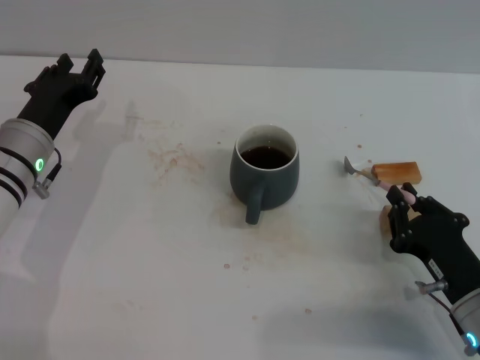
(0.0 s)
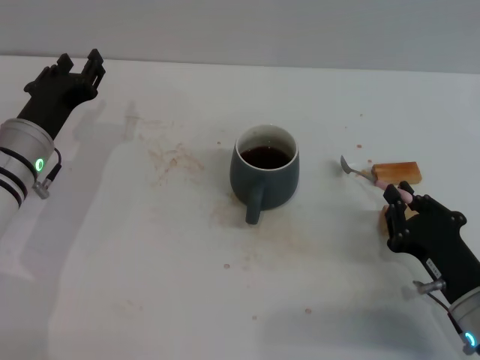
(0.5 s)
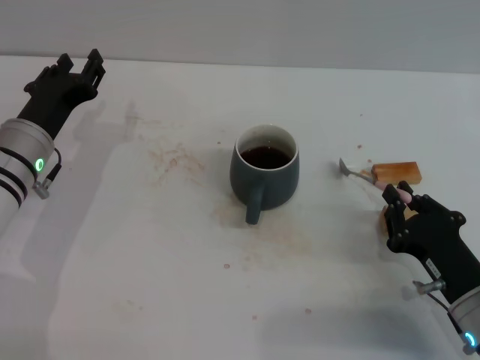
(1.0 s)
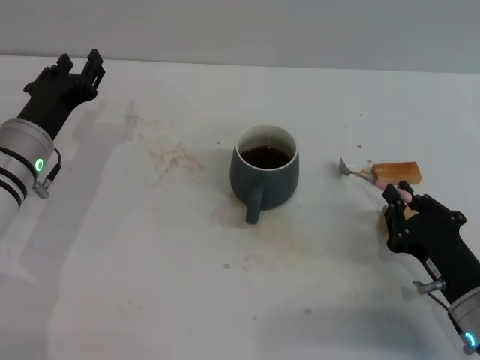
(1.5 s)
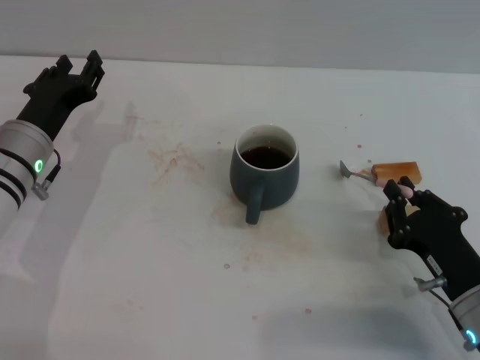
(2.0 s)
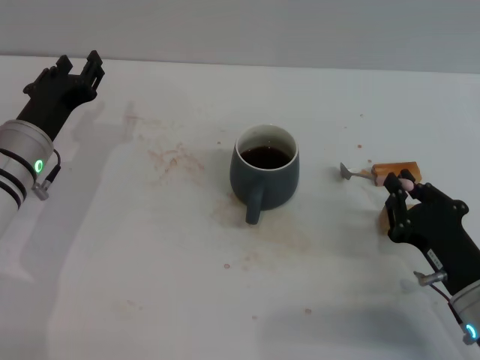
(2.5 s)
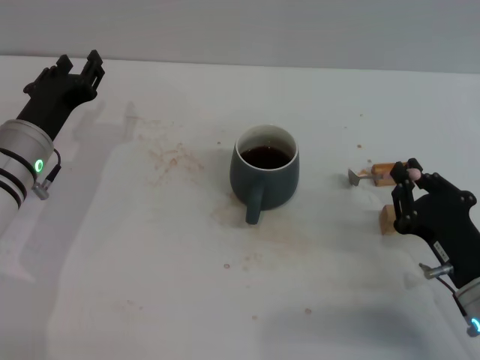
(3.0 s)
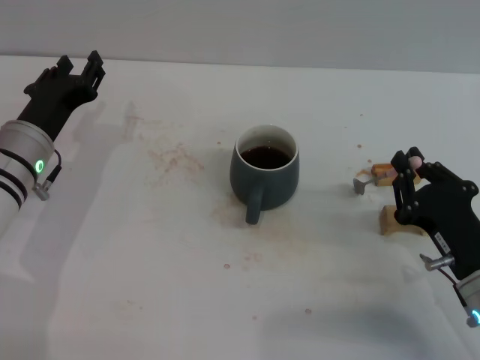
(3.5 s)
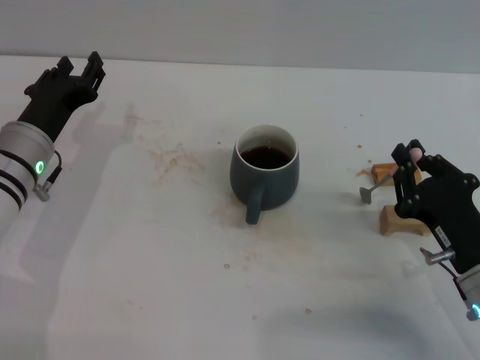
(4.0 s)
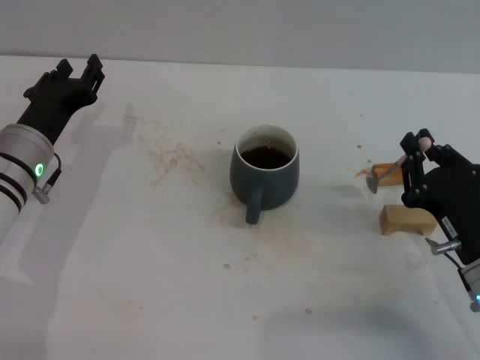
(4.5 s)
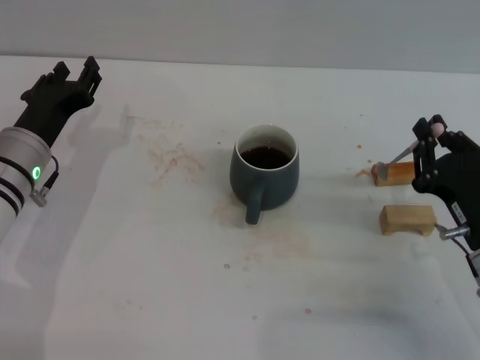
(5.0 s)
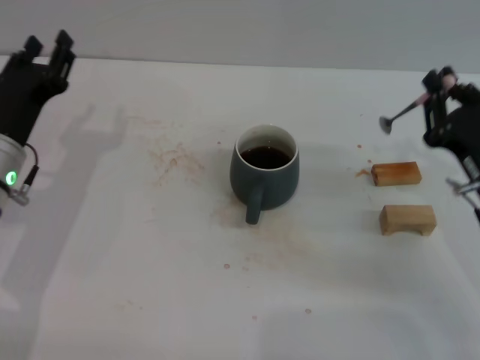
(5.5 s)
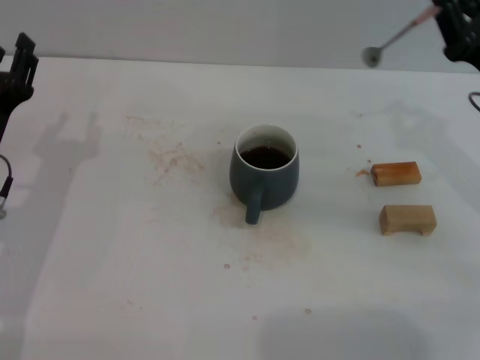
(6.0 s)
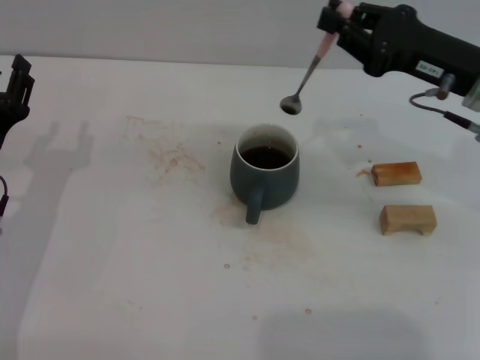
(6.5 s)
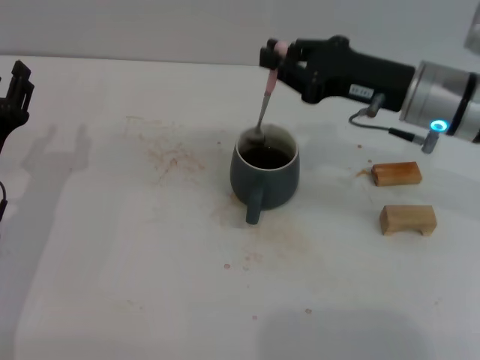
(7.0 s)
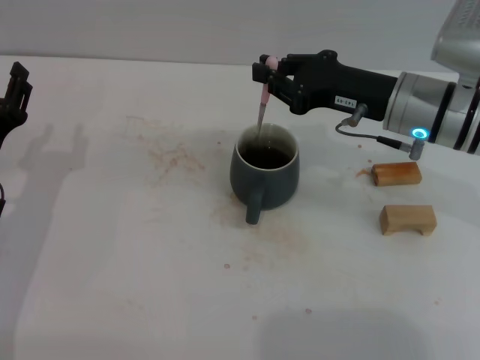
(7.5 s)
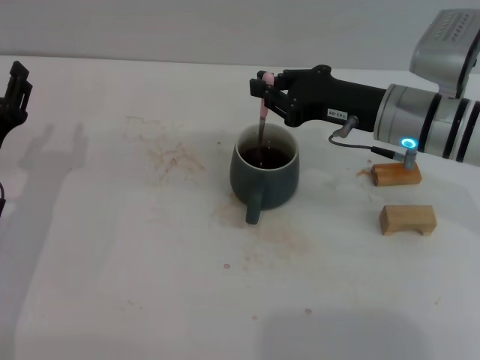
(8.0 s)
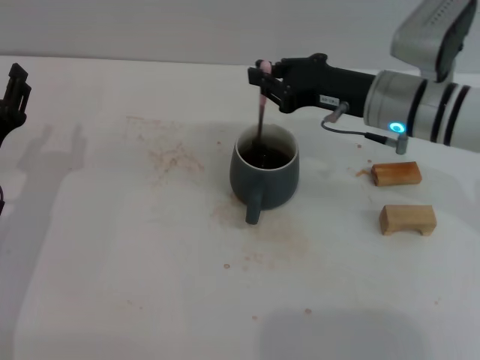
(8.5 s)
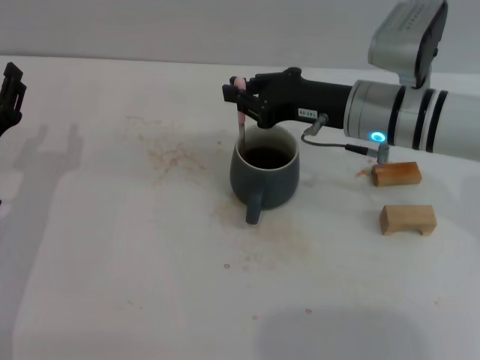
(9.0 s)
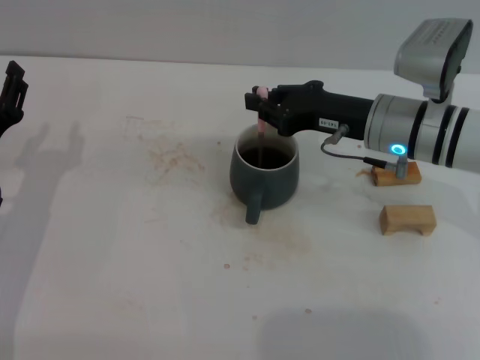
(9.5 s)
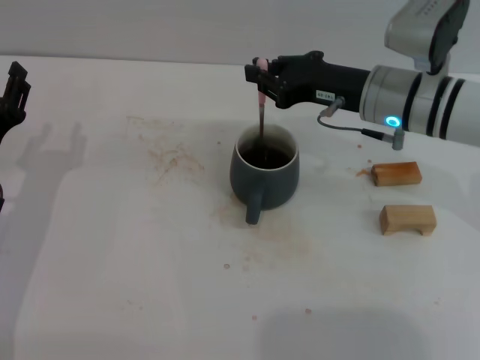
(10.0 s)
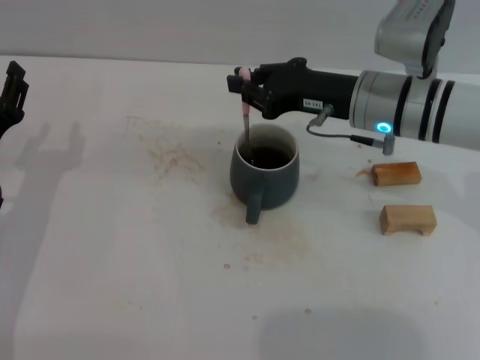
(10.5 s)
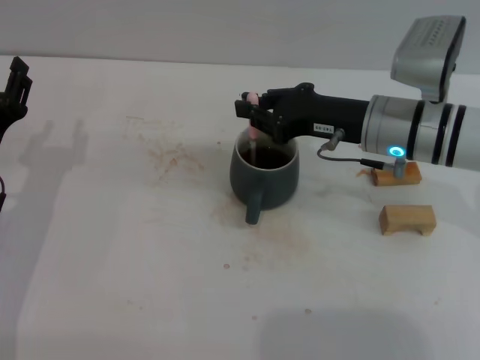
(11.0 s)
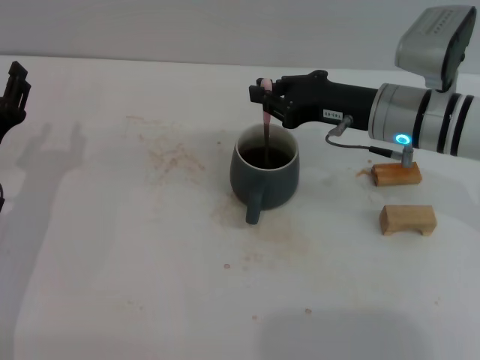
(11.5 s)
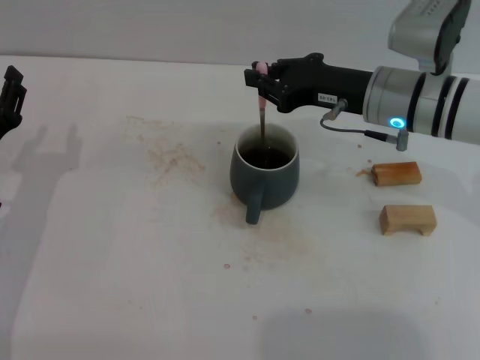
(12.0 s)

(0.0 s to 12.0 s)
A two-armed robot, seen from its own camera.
Task of the whole recording: Move the grey cup to the center, lift the pink spoon, stir it three times in the cup, and put the spoon into the cup.
Step, 0.0 s - 5.0 s: Pick up the spoon with the right gripper.
0.0 s - 2.0 s: The two grippers keep their place.
2.0 s - 4.0 s: There are only small adjustments of the grippers.
4.0 s - 6.0 s: The right gripper heads forward, upward and to the right, covering about 15 cm. The left gripper shifts by some 5 cm.
6.0 s - 8.0 s: The right gripper is displaced to the left by roughly 10 cm.
8.0 s - 12.0 s: The grippers make only small movements.

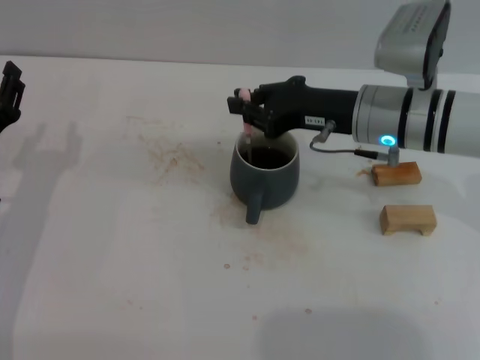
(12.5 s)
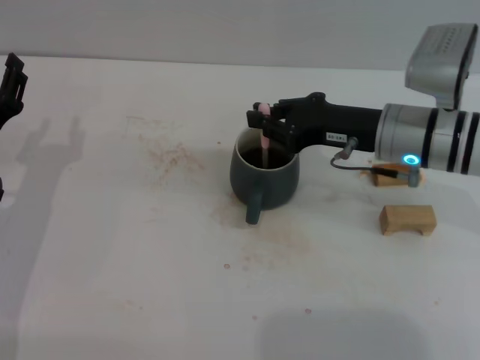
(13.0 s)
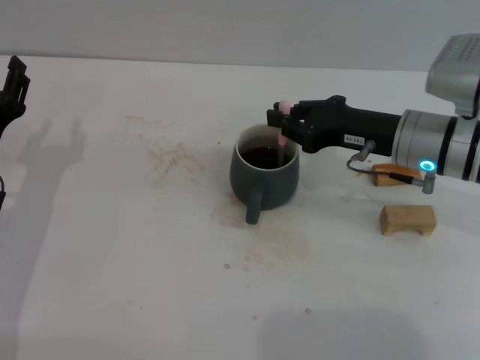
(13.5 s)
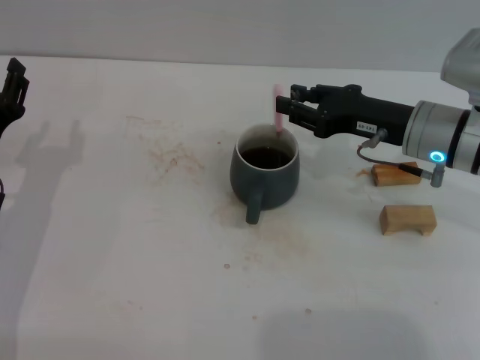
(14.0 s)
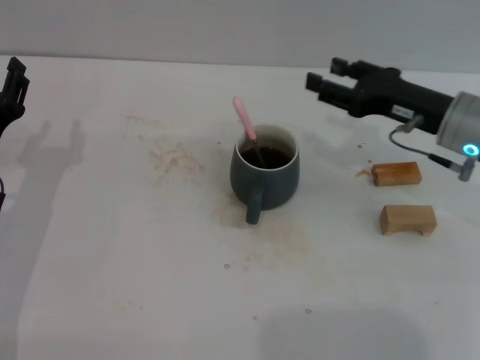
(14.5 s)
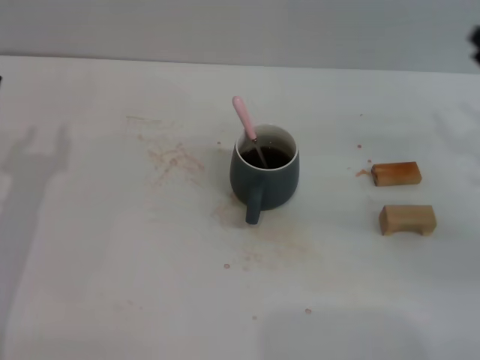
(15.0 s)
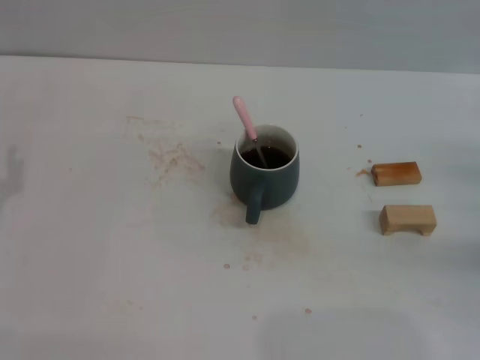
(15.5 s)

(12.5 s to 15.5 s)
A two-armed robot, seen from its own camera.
Task of the whole recording: Move the grey cup to the center, lift the pink spoon, stir it three times in the cup, and put the spoon into the cup.
12.5 s - 14.0 s: The right gripper moves to the right, about 5 cm.
14.0 s - 15.5 s: The right gripper travels to the right and backward by roughly 20 cm, and opens its fingers, while the left gripper is displaced backward by approximately 5 cm.

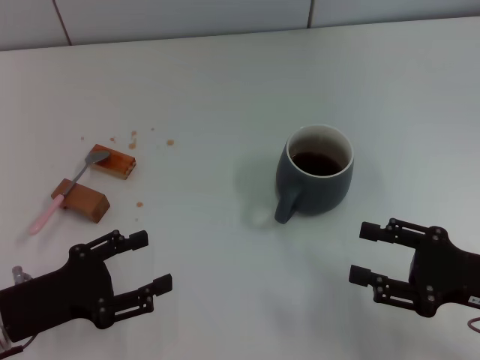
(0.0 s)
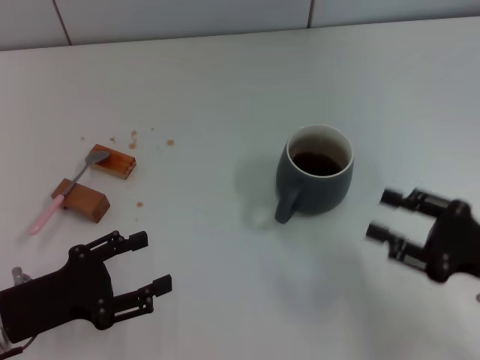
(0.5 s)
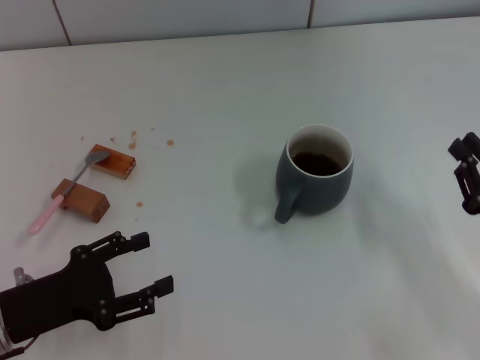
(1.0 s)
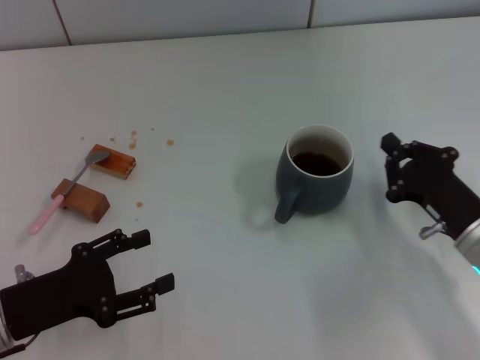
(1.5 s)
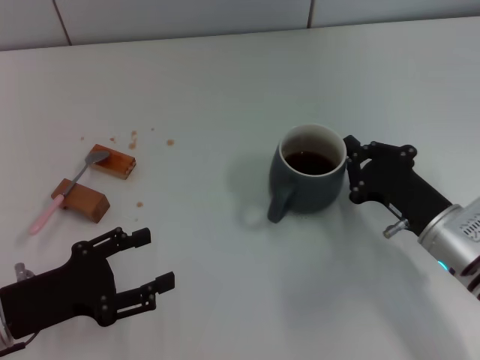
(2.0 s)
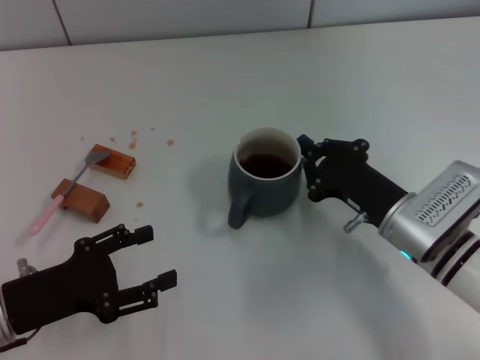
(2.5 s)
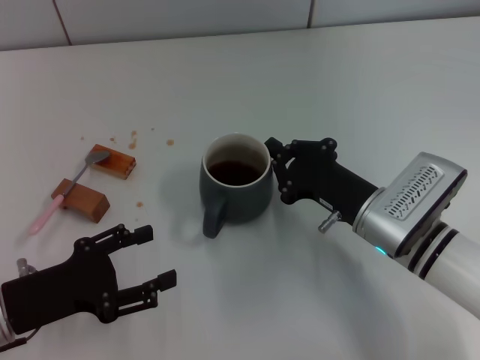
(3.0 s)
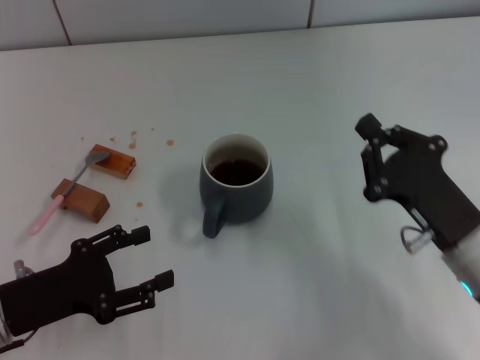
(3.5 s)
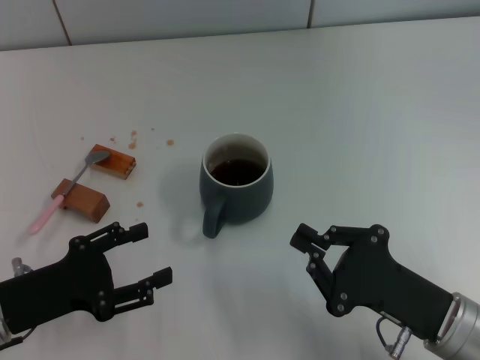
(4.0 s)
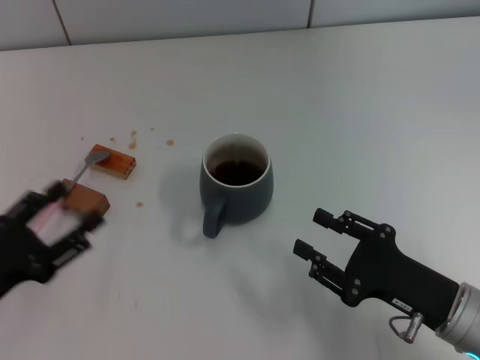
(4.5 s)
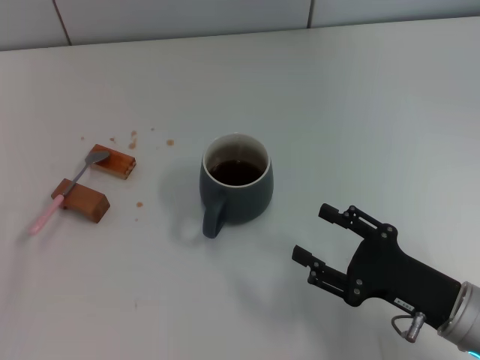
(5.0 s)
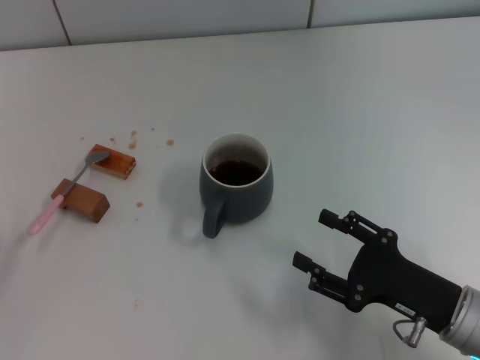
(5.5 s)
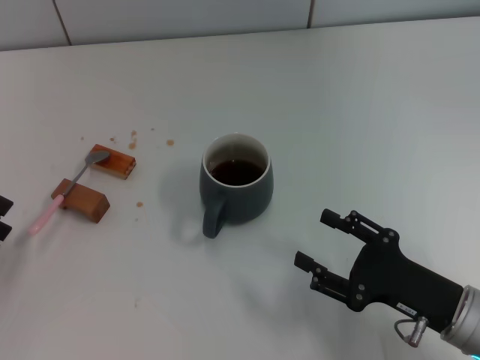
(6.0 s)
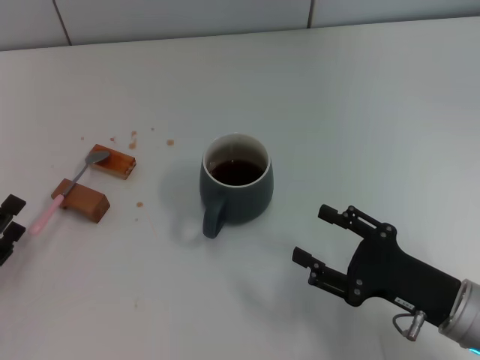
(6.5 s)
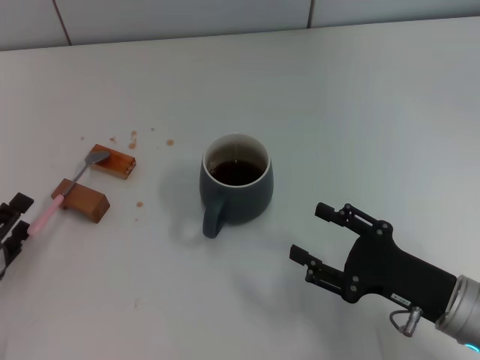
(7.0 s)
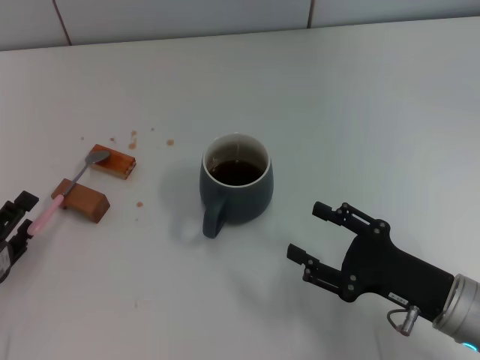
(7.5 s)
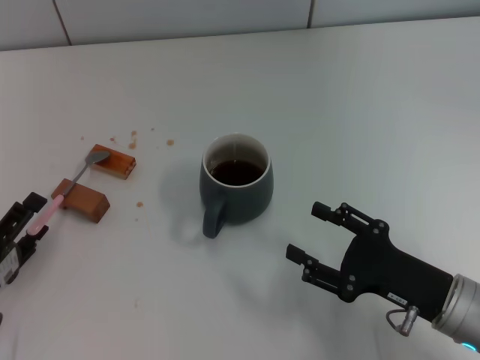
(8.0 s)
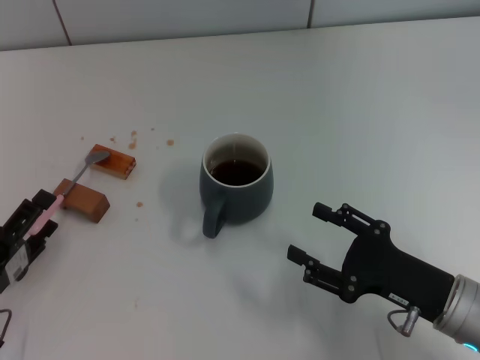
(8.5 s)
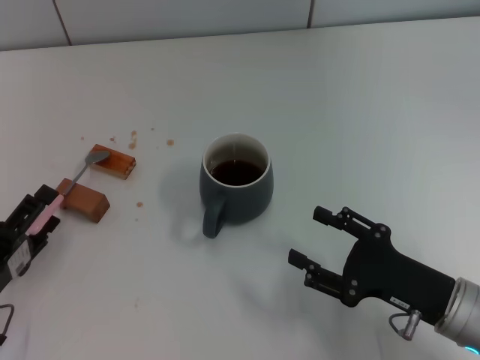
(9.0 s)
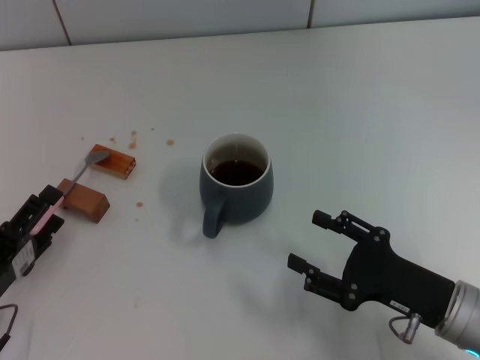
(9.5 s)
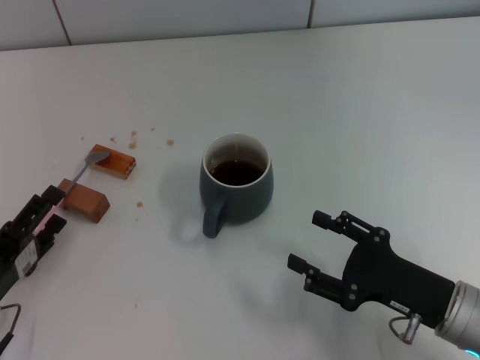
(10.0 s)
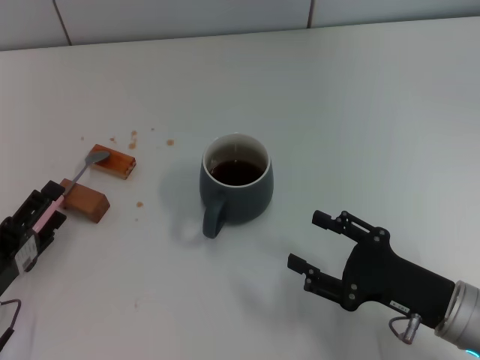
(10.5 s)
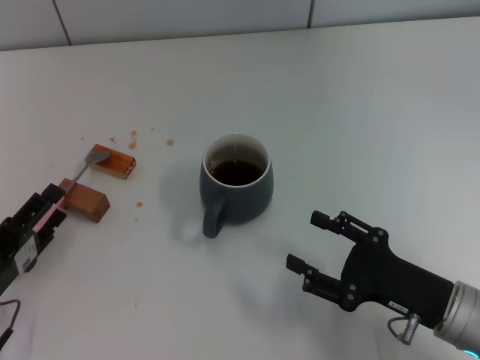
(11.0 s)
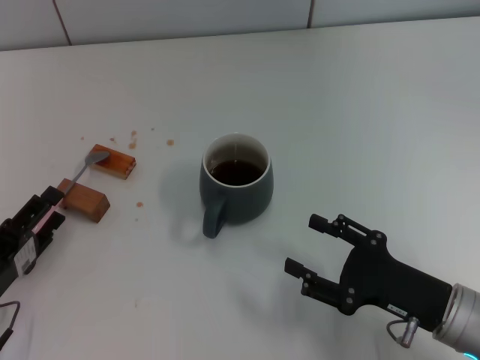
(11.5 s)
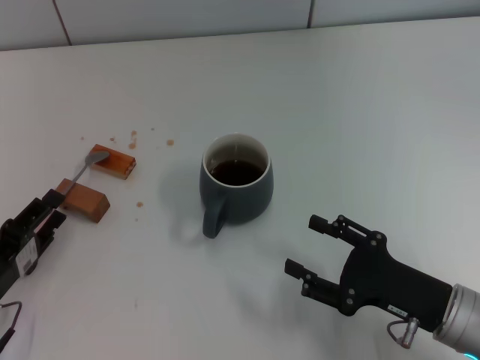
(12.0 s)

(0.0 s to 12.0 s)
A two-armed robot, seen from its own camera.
Task of the whole recording: Move the grey cup to the center, lift the pink spoon, stir it three times in the cup, and put the spoon into the cup.
Step, 0.0 s - 3.0 s: Move the cup with coffee to the center of view with the right gripper.
0.0 s - 2.0 s: The right gripper goes approximately 10 cm to the left and forward, and closes up.
2.0 s - 4.0 s: The right gripper is displaced backward by approximately 10 cm.
4.0 s - 6.0 s: The right gripper opens its fingers; the left gripper moves to the left, some 5 cm.
6.0 s - 10.0 s: There are only small adjustments of the grippers.
10.0 s - 12.0 s: Both grippers stay put.
